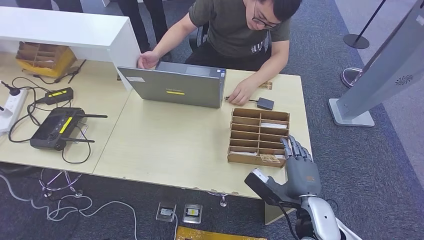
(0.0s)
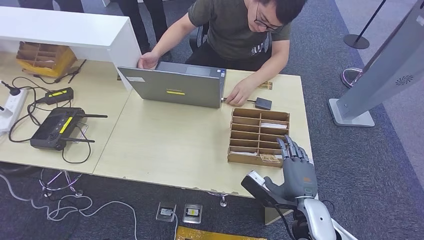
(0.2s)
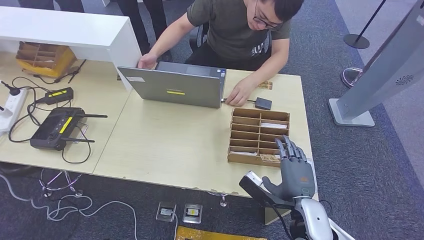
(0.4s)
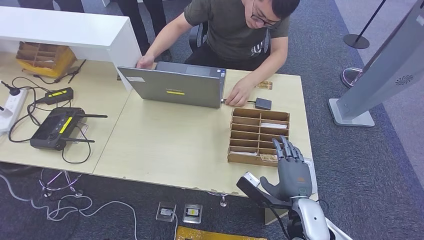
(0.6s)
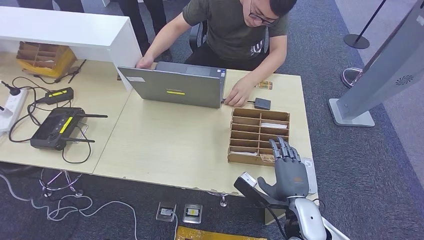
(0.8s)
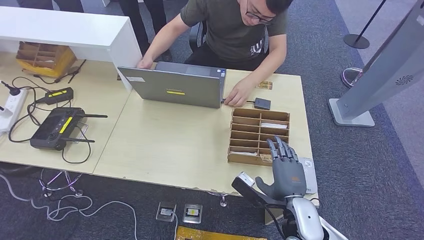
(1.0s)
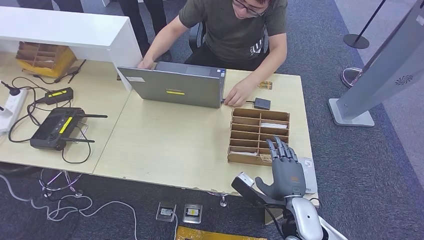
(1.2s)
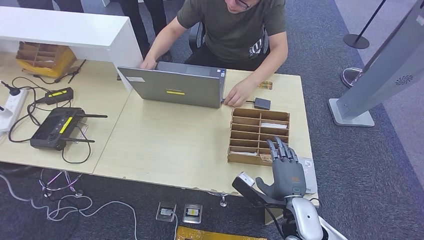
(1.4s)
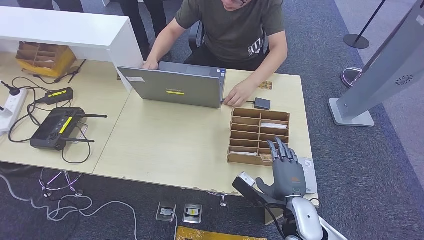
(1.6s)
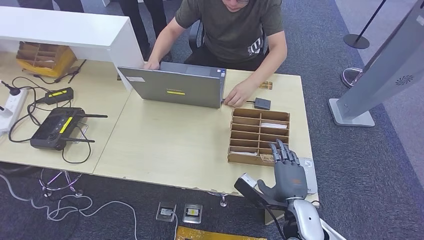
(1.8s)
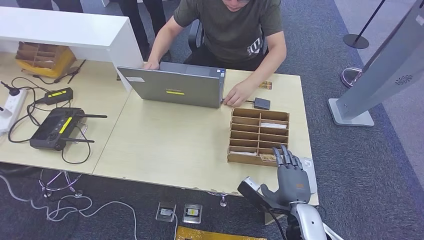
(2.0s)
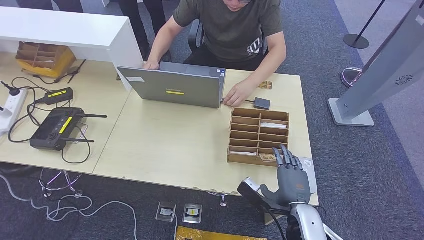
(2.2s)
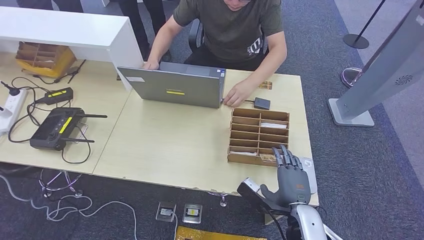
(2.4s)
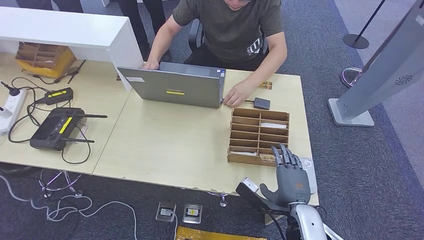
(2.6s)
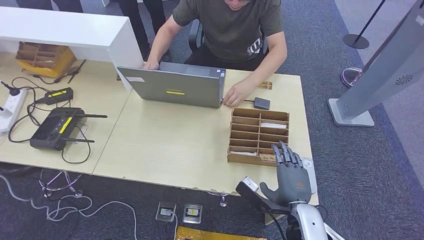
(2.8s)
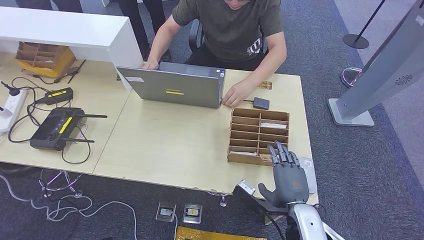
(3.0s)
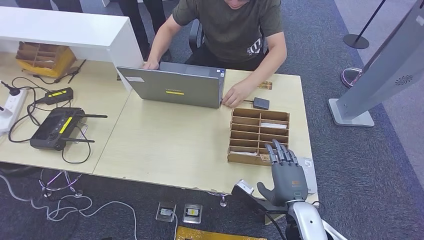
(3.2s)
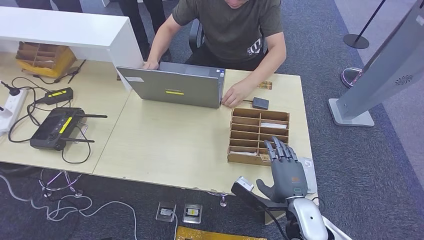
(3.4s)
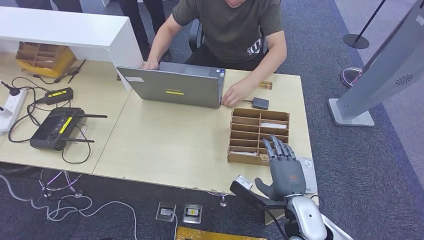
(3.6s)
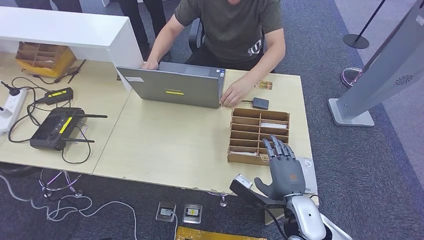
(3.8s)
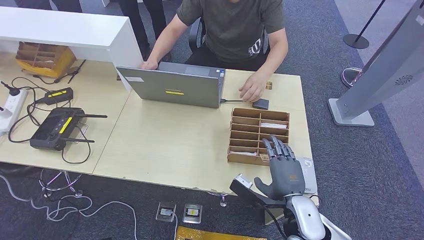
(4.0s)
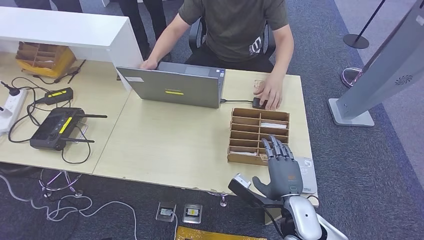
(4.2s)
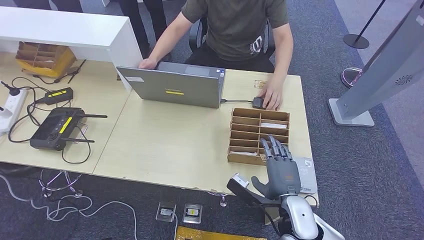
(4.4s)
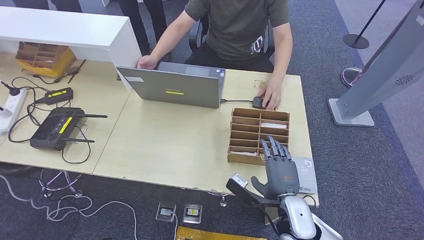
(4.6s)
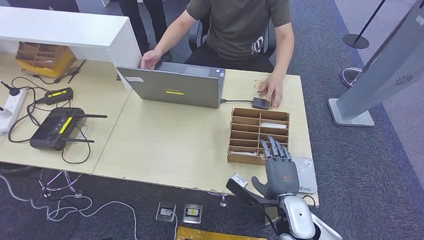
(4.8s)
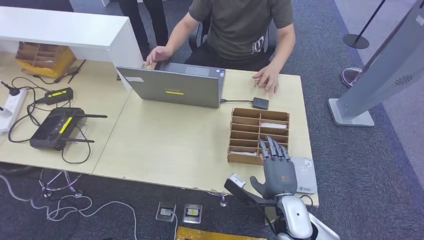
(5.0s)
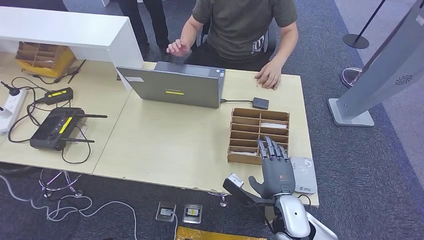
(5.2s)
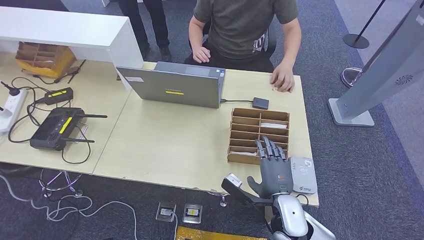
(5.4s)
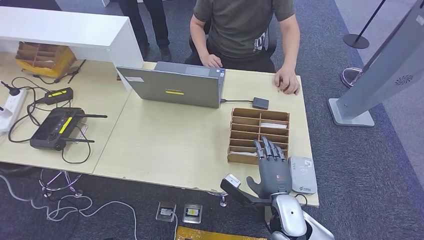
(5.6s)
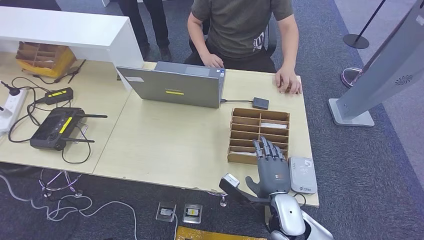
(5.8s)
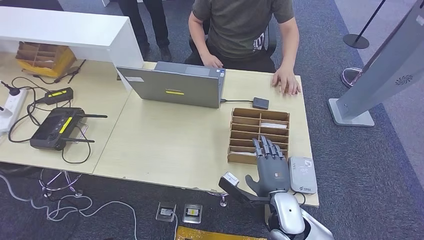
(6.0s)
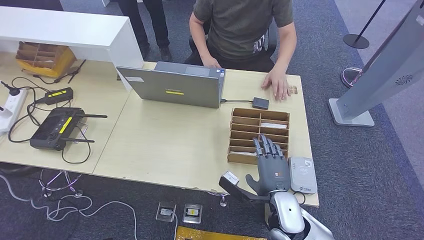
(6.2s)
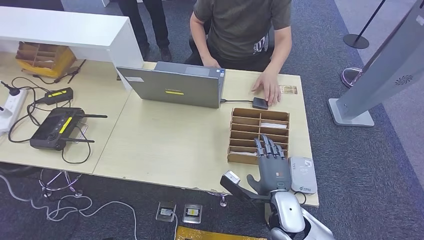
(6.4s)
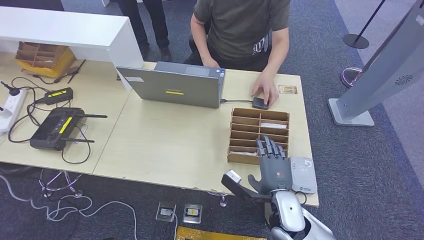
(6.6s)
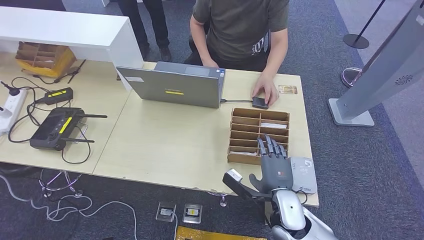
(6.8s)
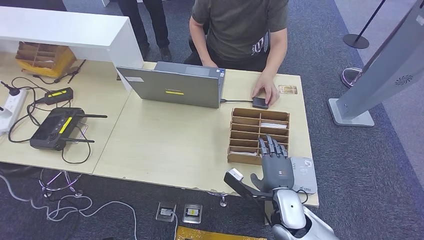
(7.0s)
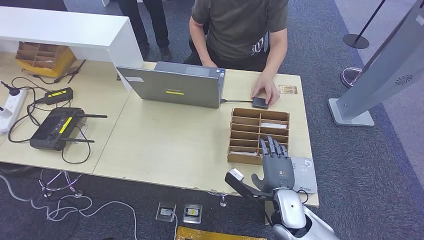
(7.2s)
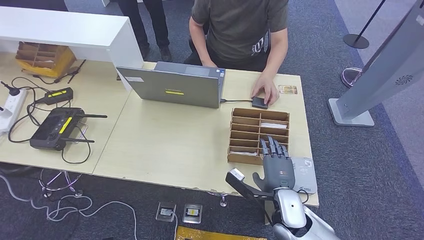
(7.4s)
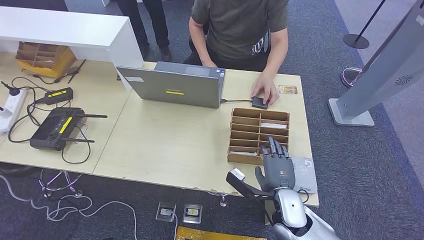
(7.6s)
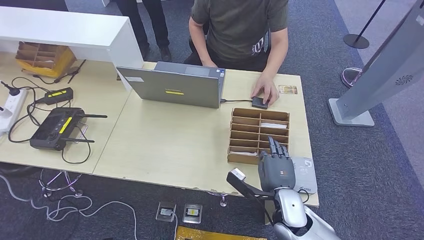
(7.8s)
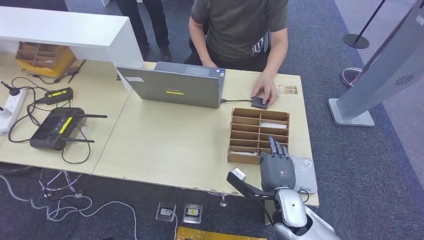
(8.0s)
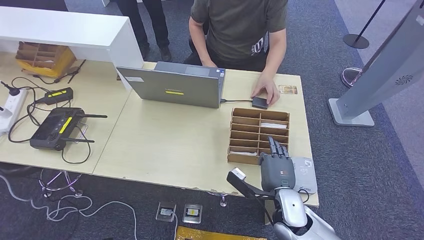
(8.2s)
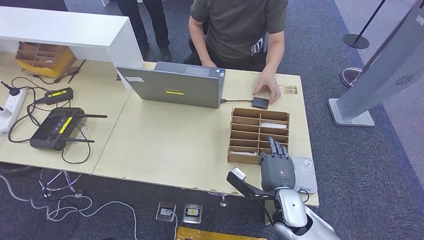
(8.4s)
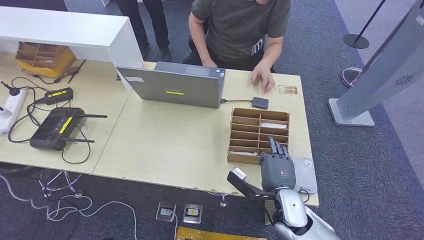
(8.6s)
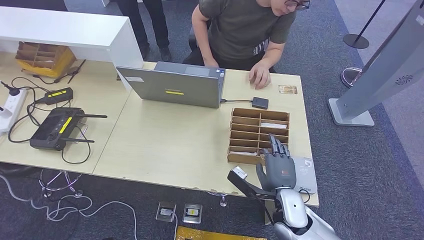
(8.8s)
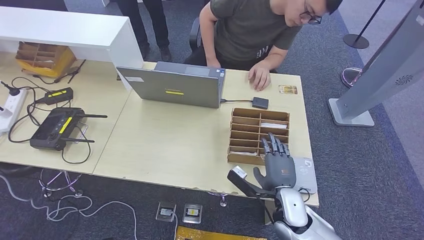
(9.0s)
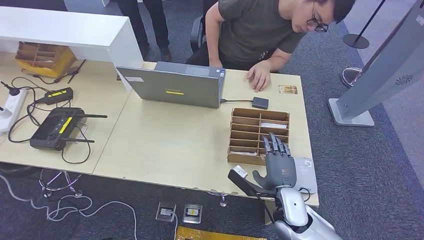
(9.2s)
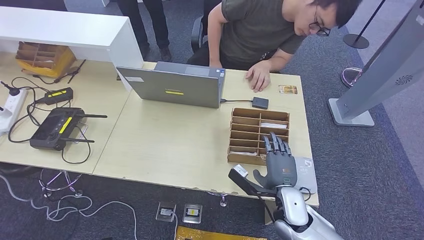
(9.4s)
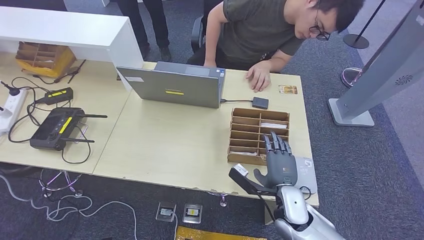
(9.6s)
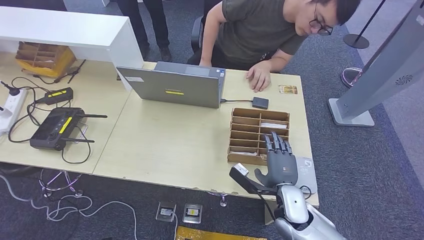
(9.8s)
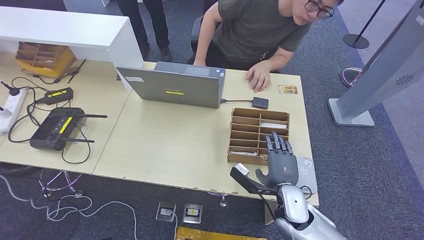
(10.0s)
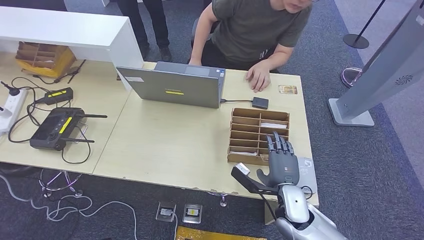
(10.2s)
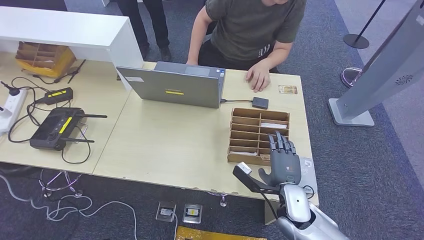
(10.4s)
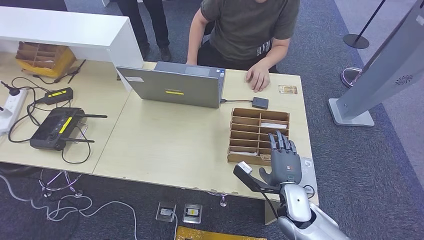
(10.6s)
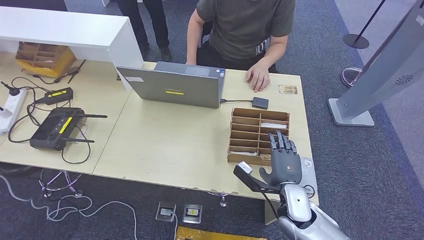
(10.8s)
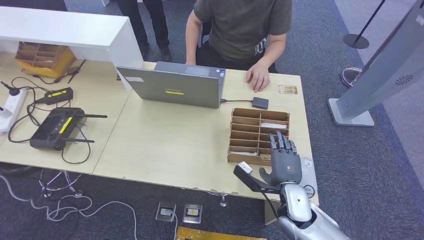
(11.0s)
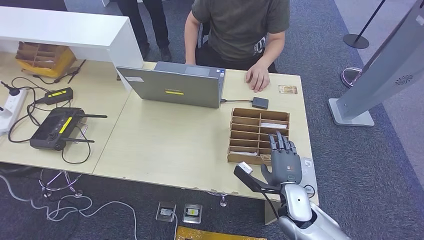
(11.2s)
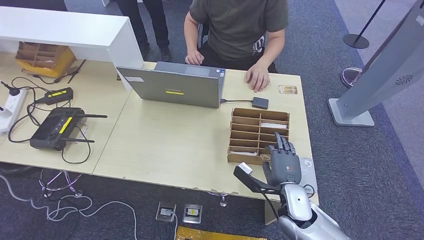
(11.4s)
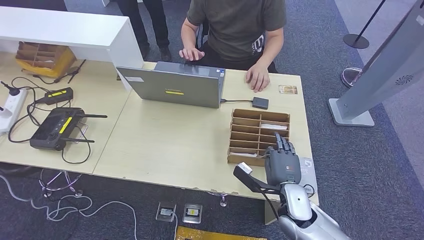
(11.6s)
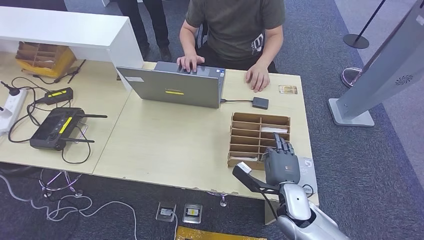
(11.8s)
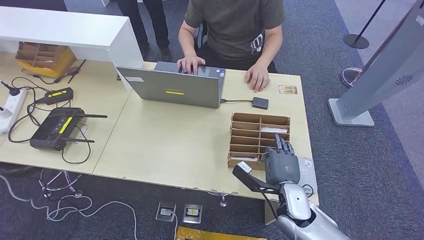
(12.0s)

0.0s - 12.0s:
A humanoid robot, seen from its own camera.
0.0s - 4.4s: The hands move only a little.
4.4s - 7.6s: The hands stay close to where they were, moving slightly.
7.6s - 9.0s: Both hands stay put.
9.0s - 10.4s: The hands make only small movements.
10.4s - 12.0s: Neither hand changes place.

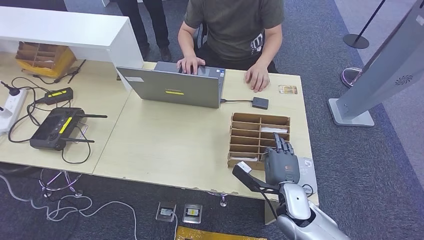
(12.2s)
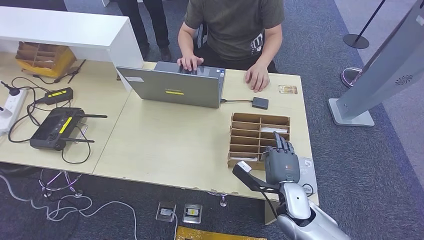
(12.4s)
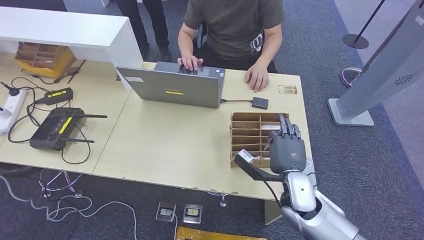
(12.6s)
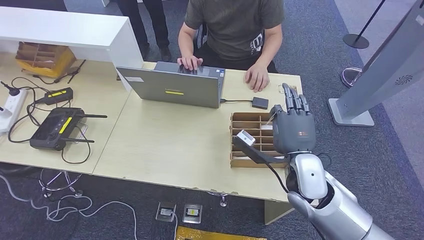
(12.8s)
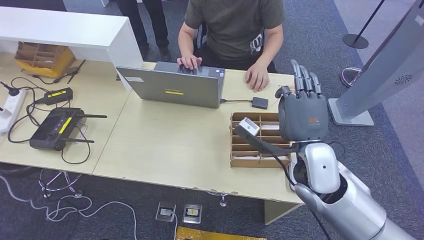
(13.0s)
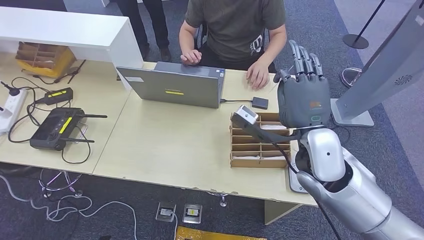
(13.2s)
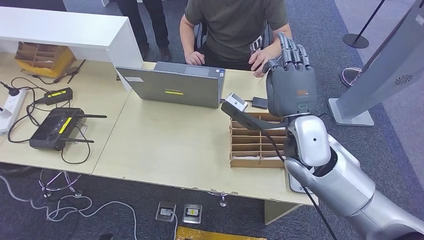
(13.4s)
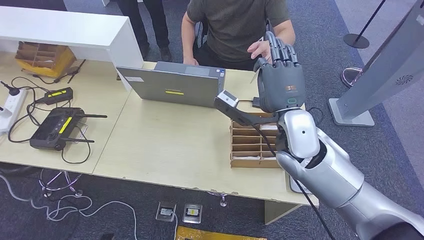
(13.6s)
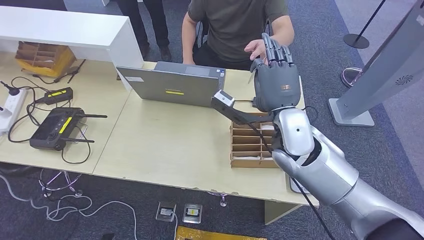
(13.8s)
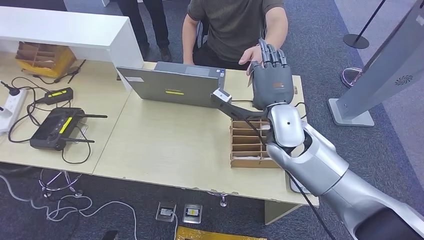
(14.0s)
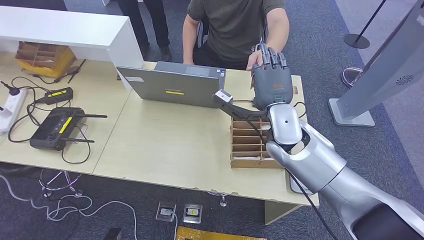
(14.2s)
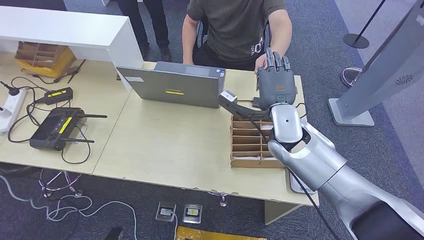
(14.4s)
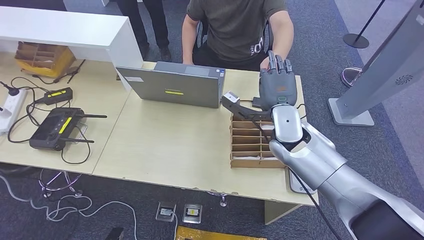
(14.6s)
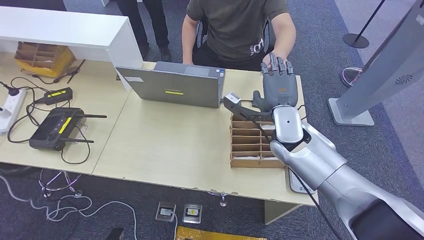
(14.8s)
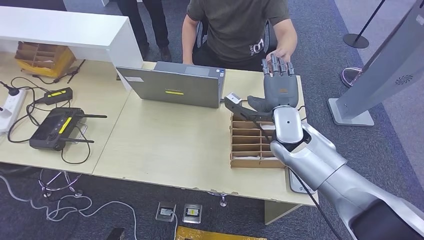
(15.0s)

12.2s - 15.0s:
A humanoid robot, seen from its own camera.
Step, 13.0s - 15.0s: Hand the room key to the person.
12.2s - 13.6s: The right hand goes some 25 cm upward and forward.
13.6s - 15.0s: The right hand goes approximately 5 cm downward.
